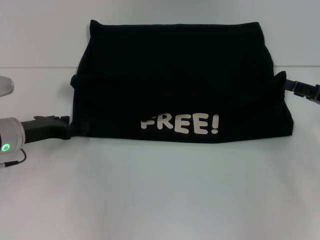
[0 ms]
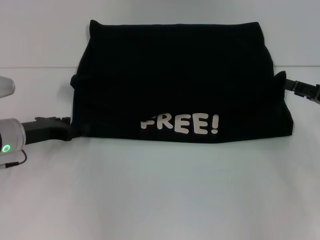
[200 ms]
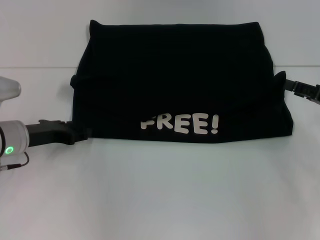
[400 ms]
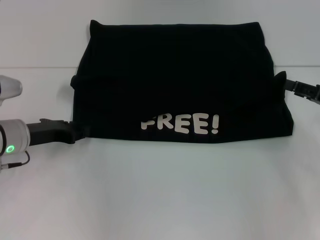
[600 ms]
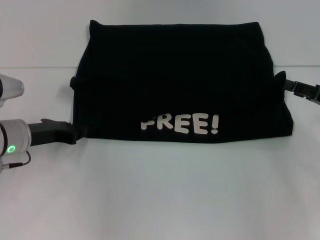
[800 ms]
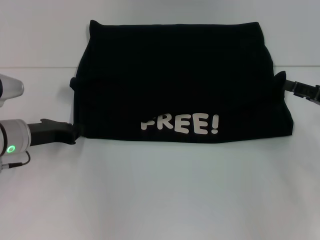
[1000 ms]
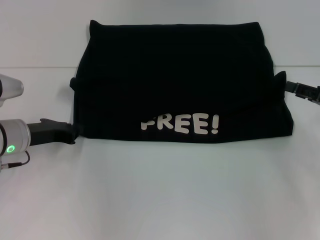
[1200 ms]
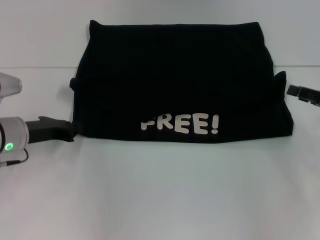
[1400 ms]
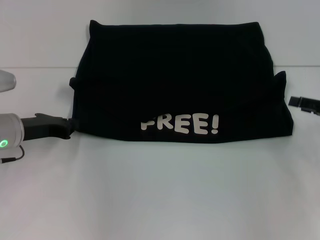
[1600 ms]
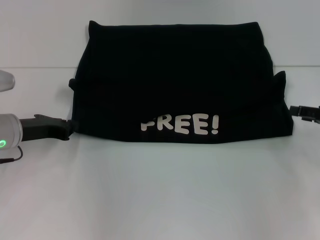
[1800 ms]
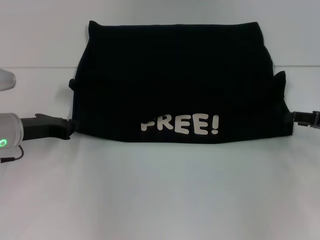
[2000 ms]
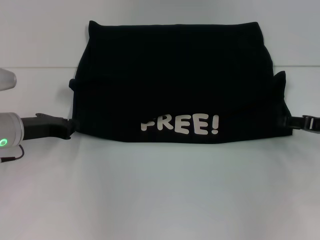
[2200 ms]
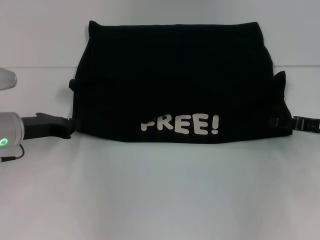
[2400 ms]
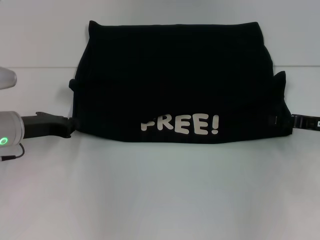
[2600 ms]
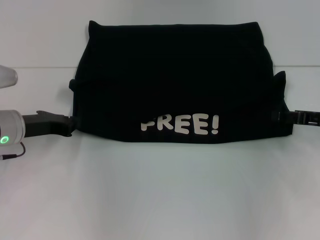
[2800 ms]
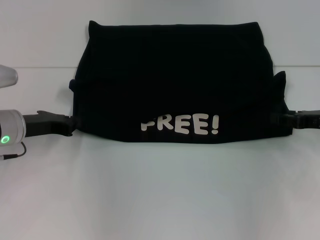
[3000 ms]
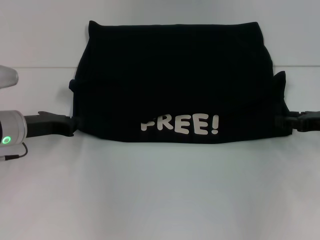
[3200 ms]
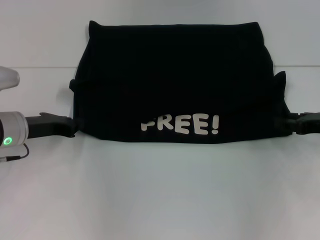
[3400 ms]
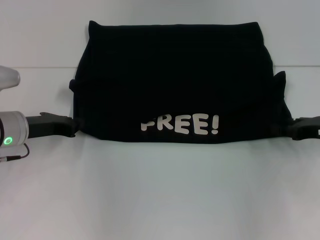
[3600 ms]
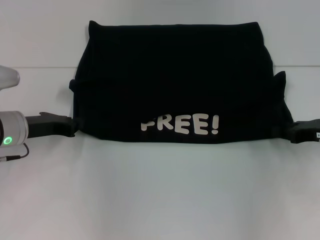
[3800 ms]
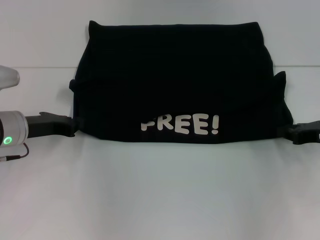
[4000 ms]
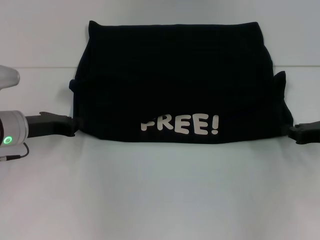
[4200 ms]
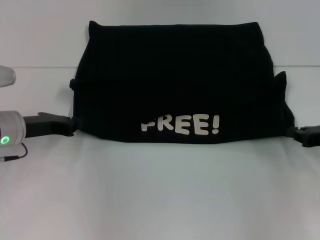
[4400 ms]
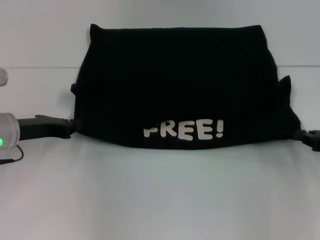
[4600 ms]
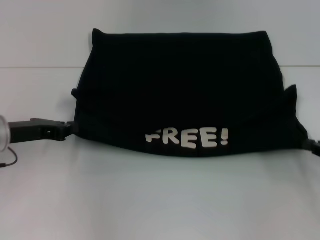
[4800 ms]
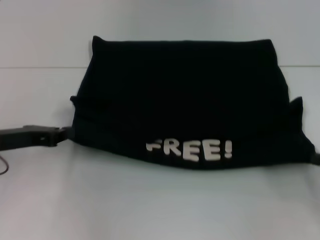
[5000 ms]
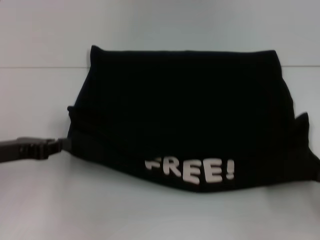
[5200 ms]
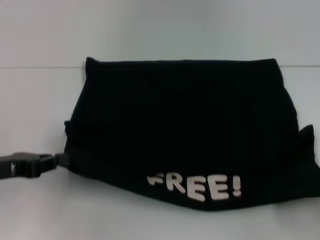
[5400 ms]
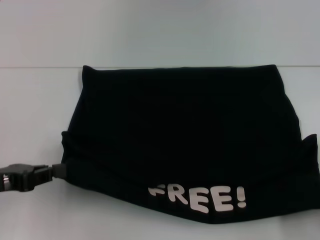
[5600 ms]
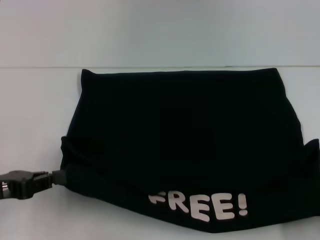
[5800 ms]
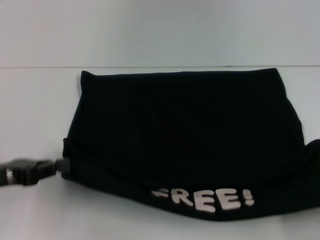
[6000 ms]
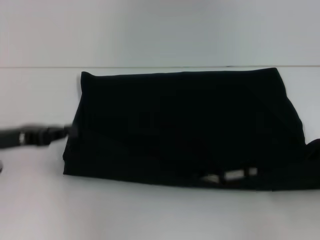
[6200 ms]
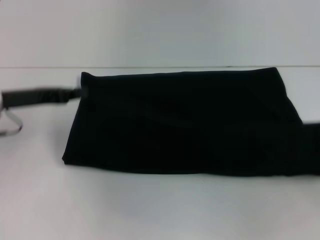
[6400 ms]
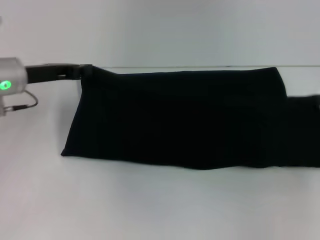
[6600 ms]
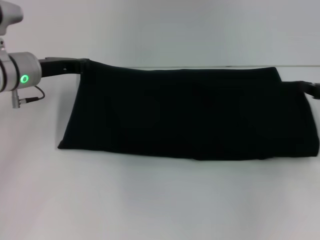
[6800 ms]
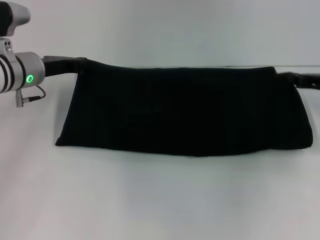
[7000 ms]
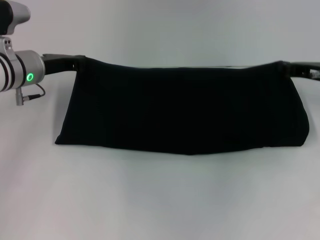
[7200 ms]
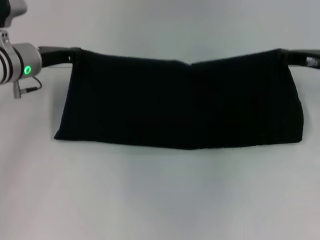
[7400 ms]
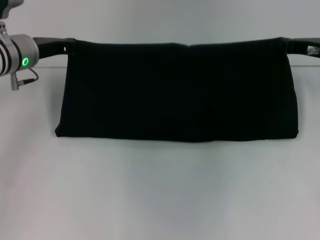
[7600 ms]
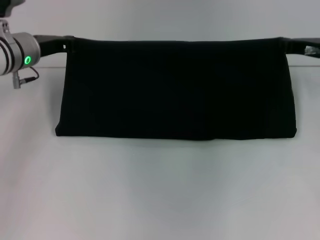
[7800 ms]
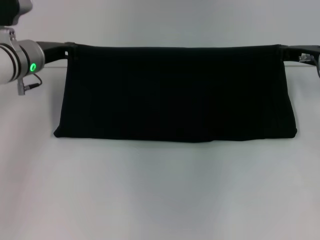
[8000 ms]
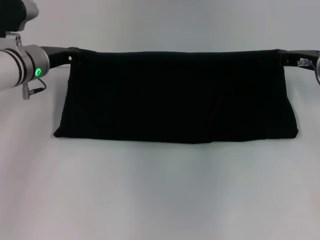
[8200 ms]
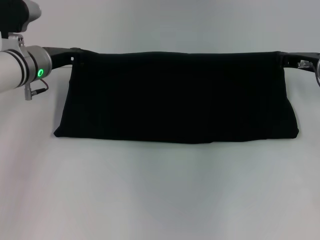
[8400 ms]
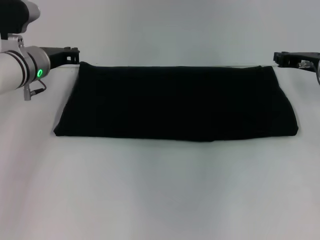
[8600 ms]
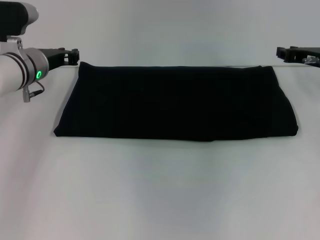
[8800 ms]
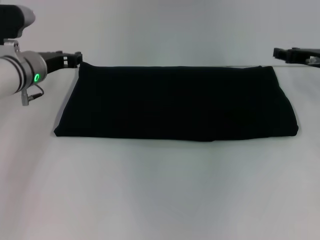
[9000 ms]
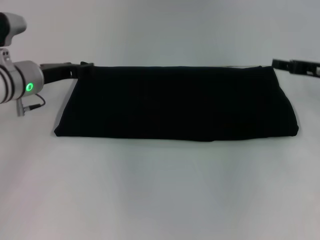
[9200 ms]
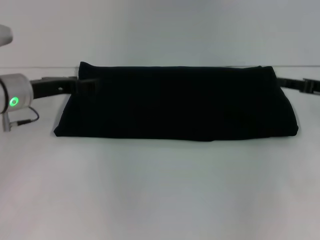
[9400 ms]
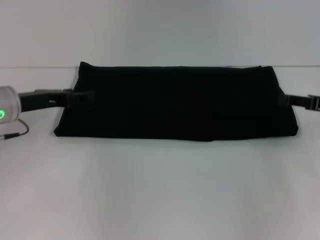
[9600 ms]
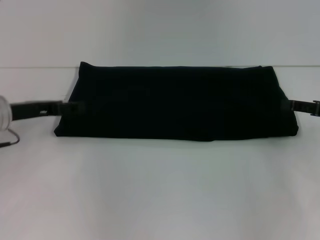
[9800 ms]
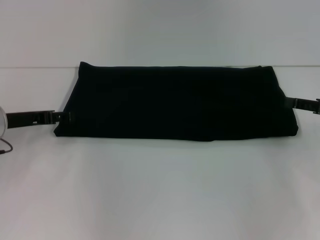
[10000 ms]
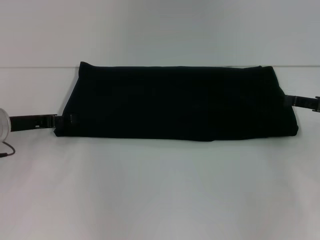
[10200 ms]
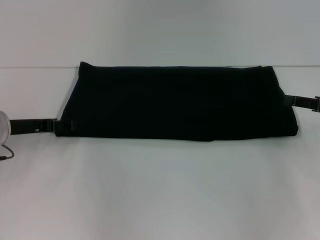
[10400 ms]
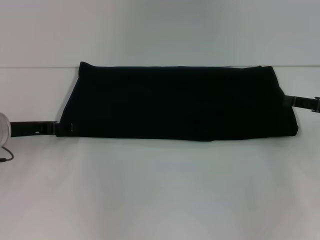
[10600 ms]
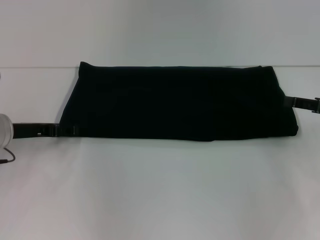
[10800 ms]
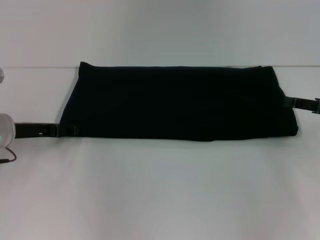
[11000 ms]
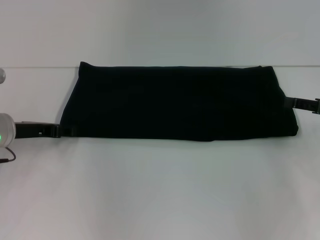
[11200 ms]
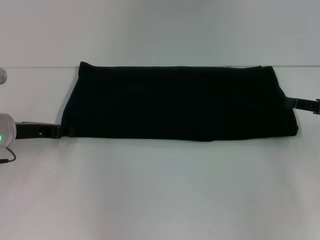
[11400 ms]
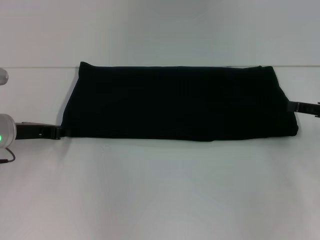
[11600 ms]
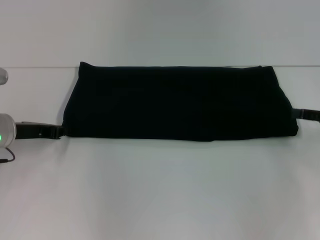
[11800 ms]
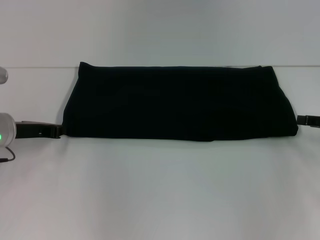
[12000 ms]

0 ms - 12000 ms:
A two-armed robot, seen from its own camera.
Step, 0 ms - 5600 ms: Pull the clothes with your left hand.
Step, 0 ms - 5600 ms: Pull the clothes with your right hand.
Step, 5800 ms - 9000 ms: Fold the clothes with your right hand.
0 ms - 1600 ms: The left gripper closes.
3000 ms - 4400 ms: The right gripper closes.
4400 ms - 6000 ms: The right gripper heads backward and to the right, covering some 20 cm. Meanwhile the left gripper is displaced backward by some 10 cm.
6000 ms - 7600 ms: The right gripper goes approximately 30 cm forward and to the left. The left gripper goes some 20 cm forward.
7600 ms - 9000 ms: There are only small adjustments of the grippers.
9000 ms - 10400 ms: The left gripper travels backward and to the left by approximately 10 cm, and opens, while the right gripper is displaced backward and to the right by roughly 10 cm.
10400 ms - 12000 ms: The left gripper closes its fingers.

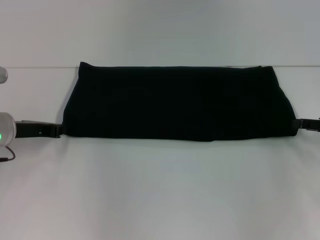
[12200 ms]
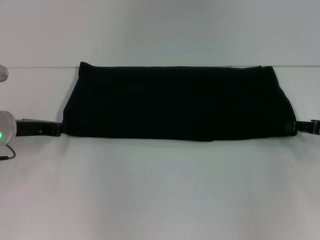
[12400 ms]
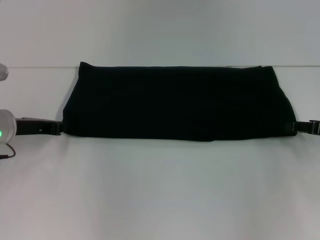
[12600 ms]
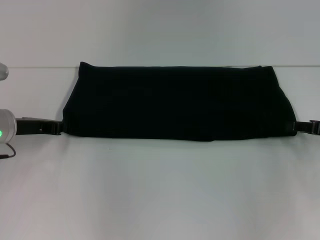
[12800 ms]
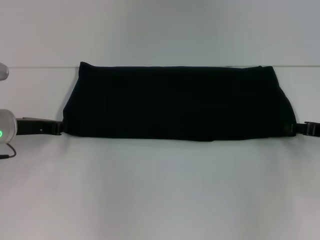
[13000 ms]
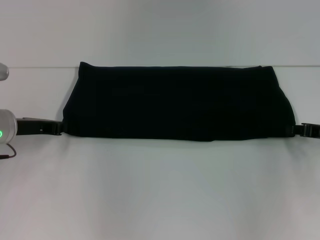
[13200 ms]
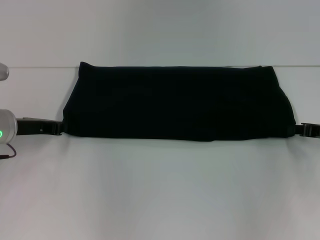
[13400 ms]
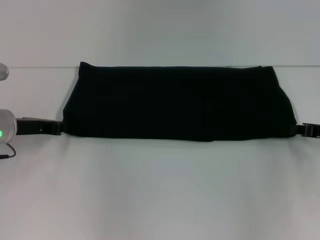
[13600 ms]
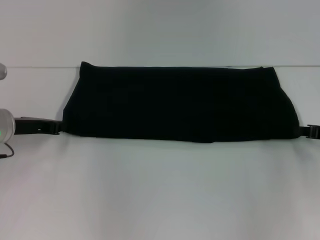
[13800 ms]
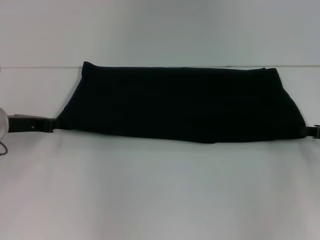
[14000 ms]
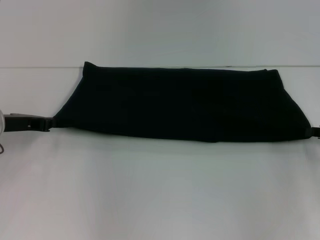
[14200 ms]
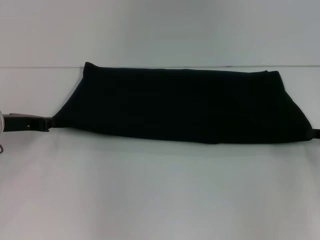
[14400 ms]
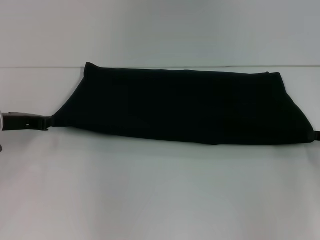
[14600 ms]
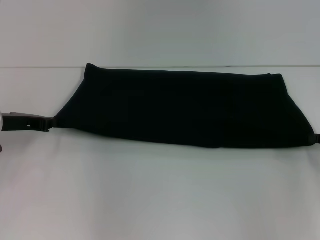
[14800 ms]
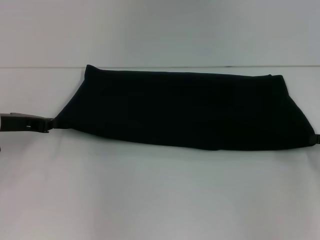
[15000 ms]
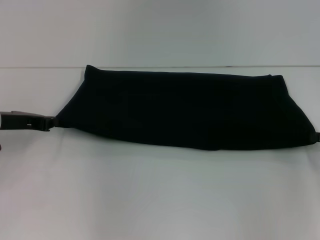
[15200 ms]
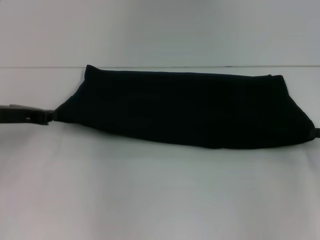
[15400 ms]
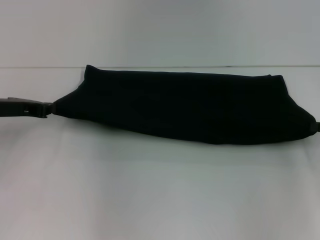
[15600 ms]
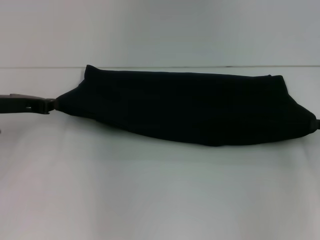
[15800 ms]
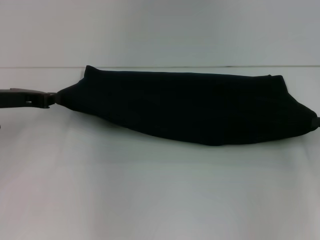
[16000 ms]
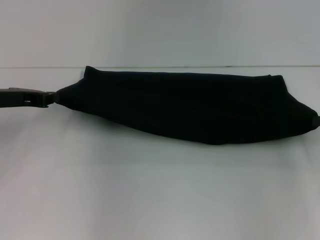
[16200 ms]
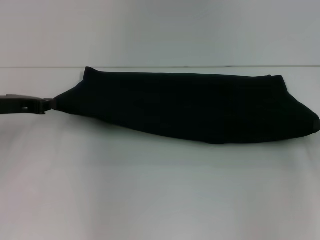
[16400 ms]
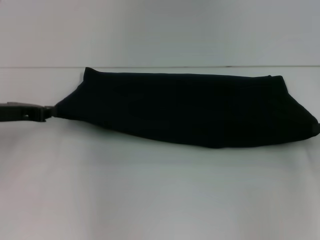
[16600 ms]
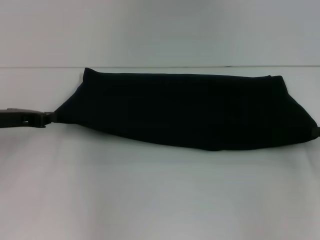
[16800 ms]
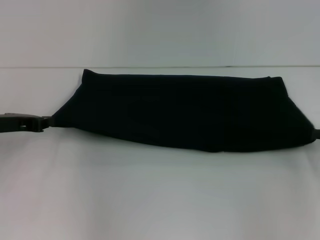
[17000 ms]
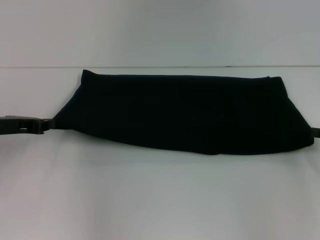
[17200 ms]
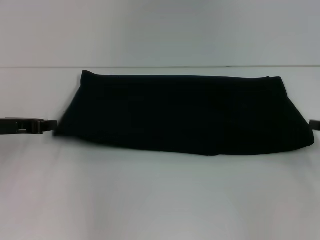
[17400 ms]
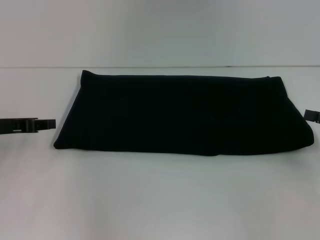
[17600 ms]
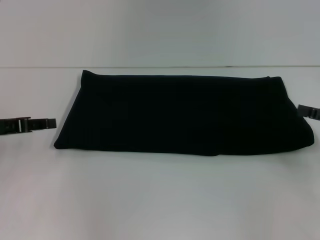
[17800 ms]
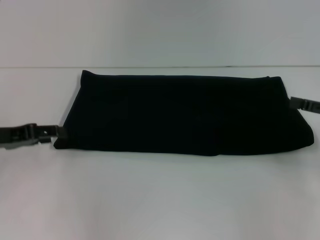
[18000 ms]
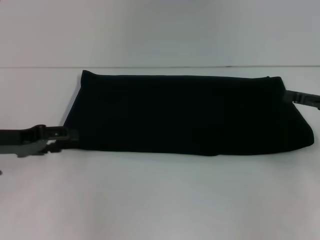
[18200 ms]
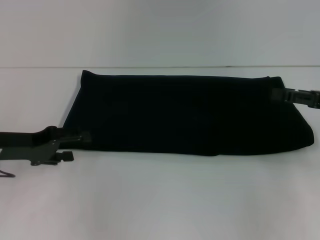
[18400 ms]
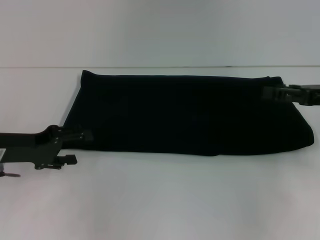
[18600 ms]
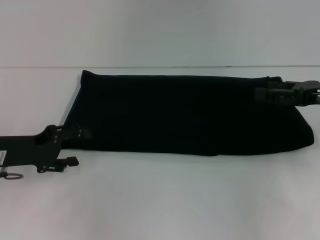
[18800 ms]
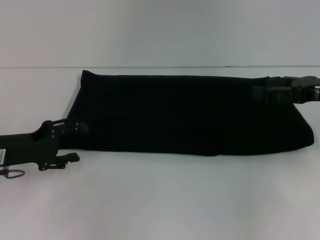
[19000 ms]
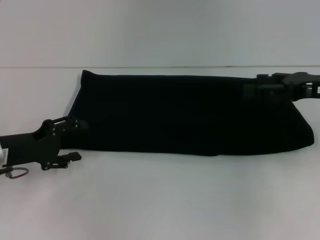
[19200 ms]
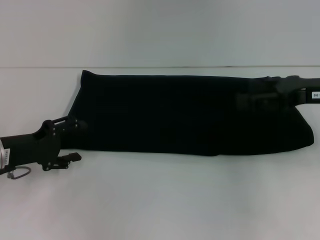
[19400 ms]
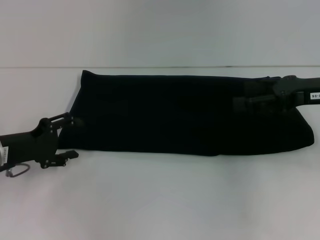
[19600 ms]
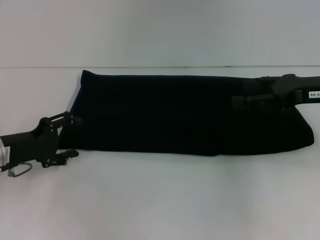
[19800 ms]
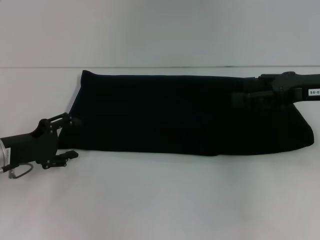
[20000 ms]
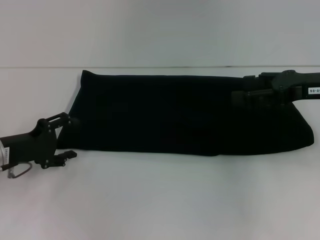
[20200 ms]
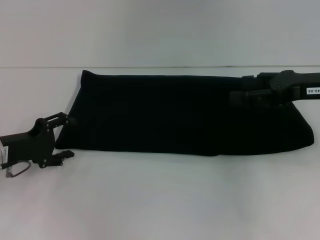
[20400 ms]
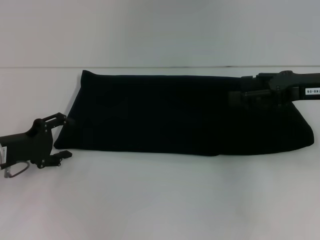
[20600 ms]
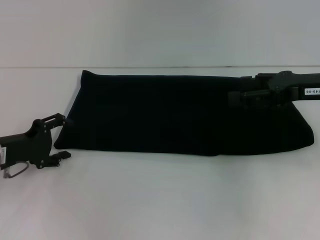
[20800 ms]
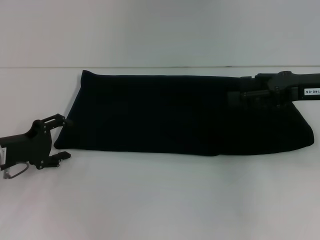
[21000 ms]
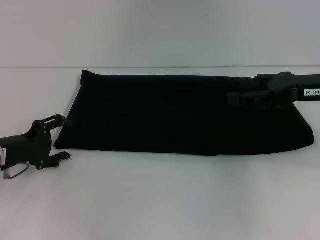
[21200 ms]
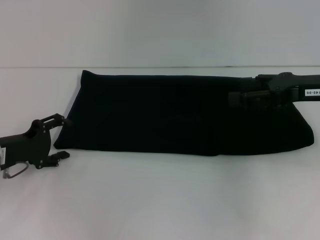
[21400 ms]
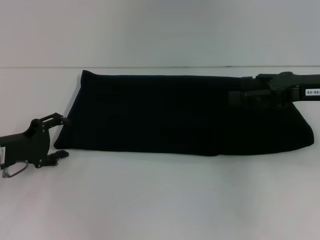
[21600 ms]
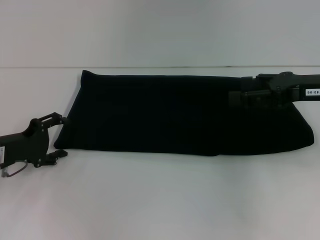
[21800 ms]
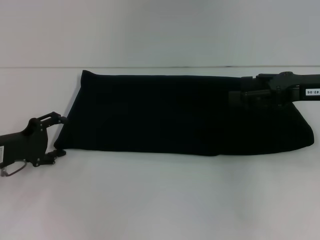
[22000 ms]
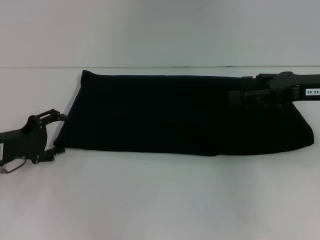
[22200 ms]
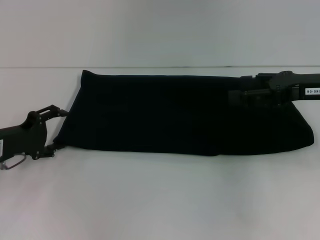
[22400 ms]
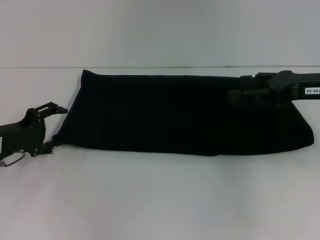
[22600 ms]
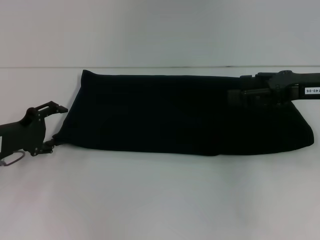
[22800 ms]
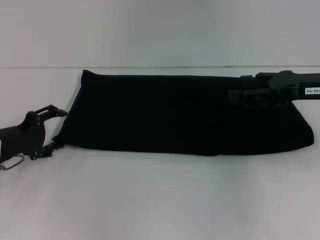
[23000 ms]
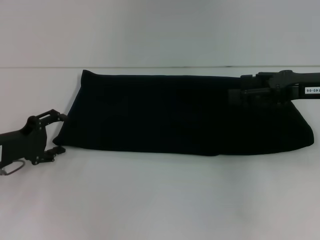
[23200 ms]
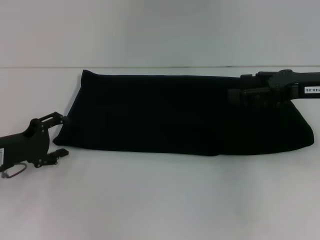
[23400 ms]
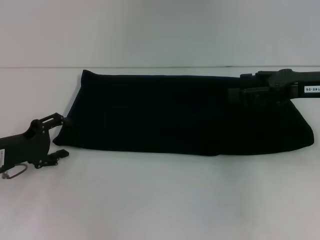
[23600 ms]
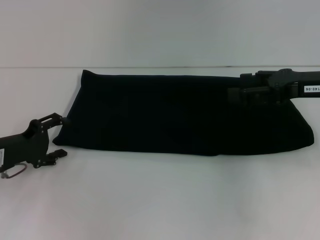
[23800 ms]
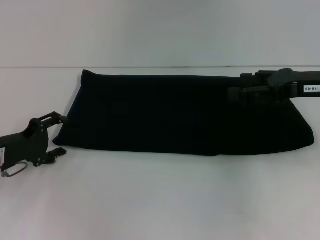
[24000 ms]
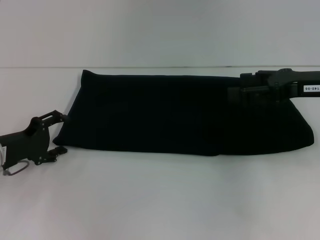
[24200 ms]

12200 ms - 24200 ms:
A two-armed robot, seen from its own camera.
12200 ms - 13800 ms: The right gripper closes.
13800 ms - 16600 ms: The grippers move only a little.
16600 ms - 18200 ms: The right gripper opens its fingers. Meanwhile the left gripper opens its fingers.
18200 ms - 19800 ms: The right gripper is displaced to the left by roughly 5 cm.
19800 ms - 24200 ms: There are only small adjustments of the grippers.
